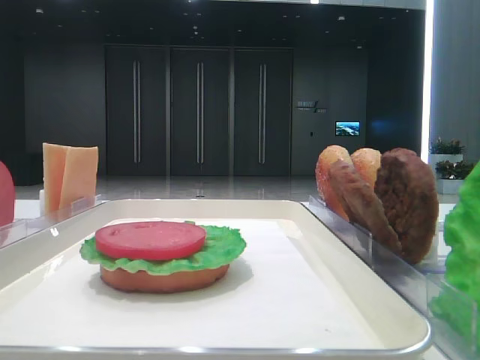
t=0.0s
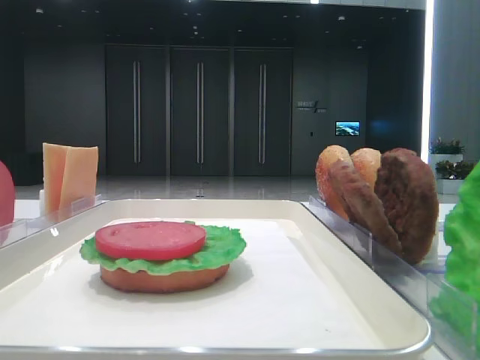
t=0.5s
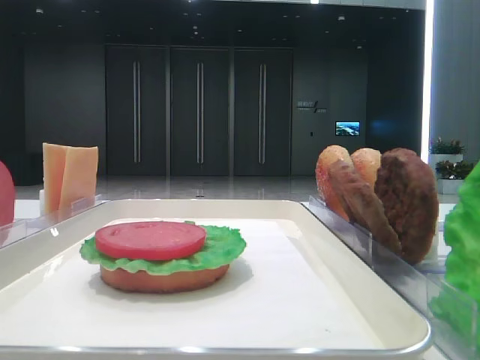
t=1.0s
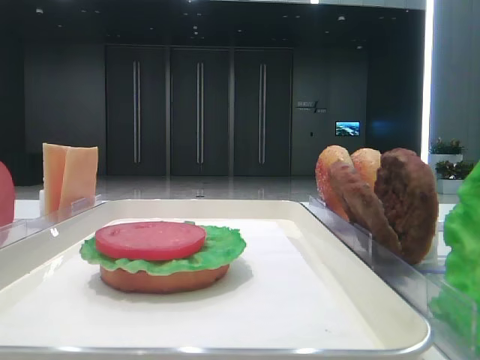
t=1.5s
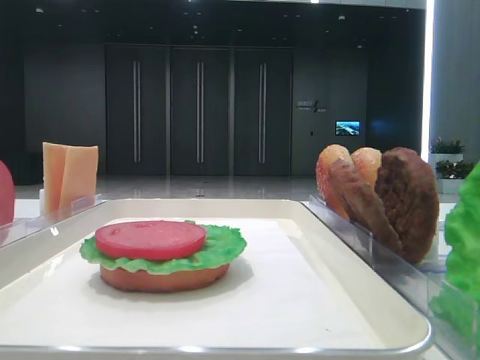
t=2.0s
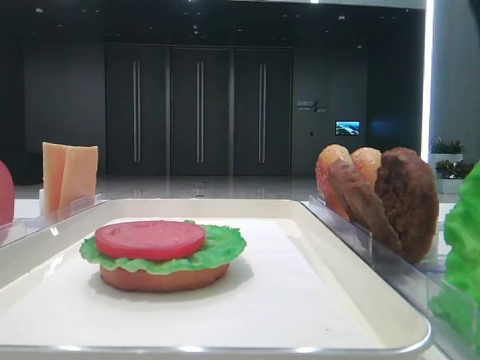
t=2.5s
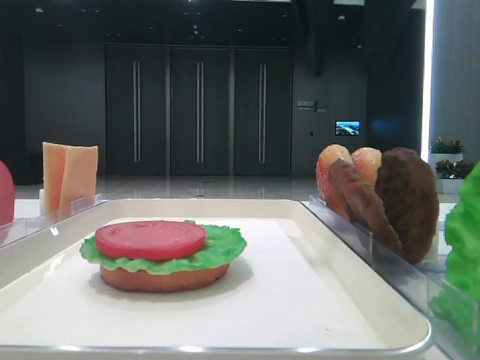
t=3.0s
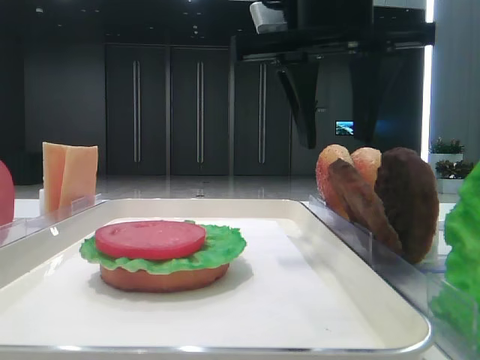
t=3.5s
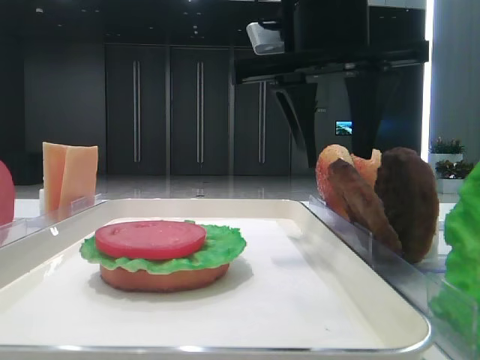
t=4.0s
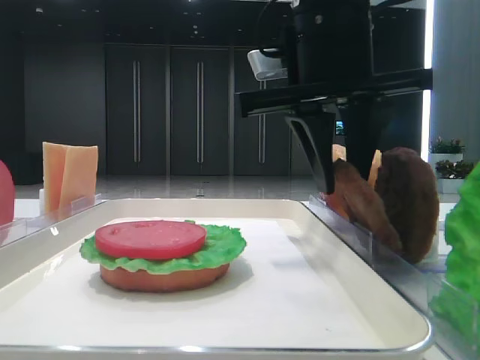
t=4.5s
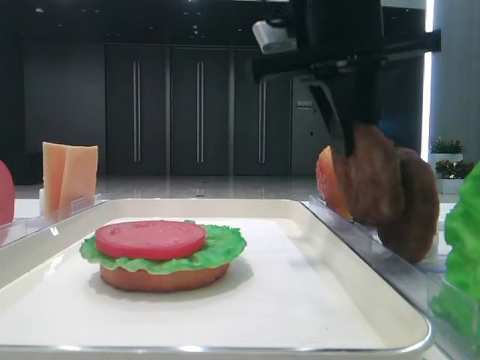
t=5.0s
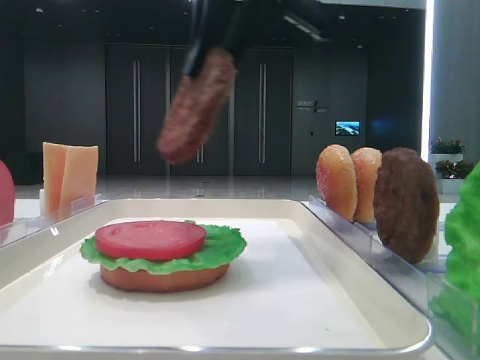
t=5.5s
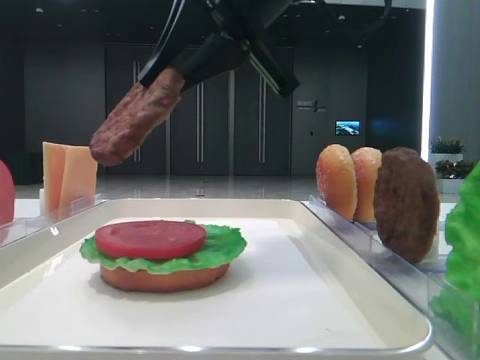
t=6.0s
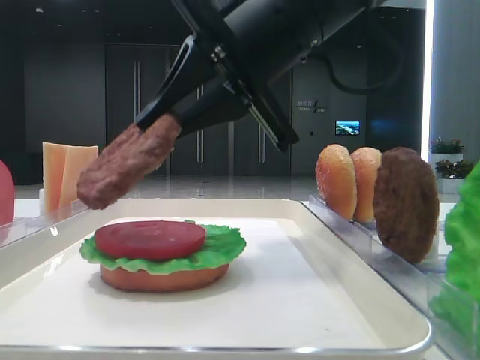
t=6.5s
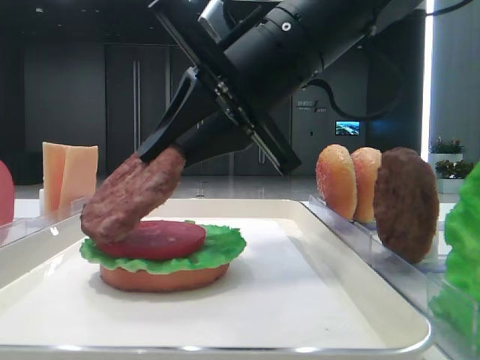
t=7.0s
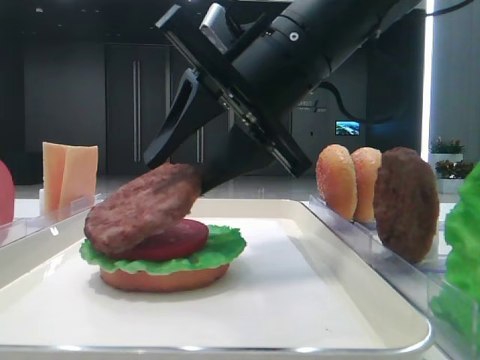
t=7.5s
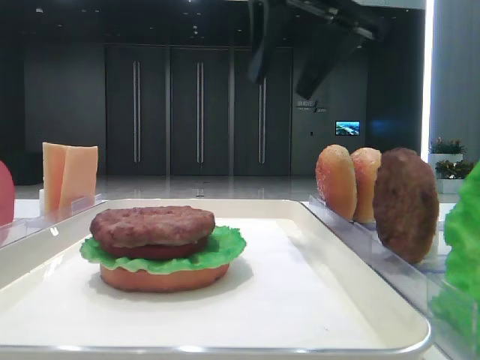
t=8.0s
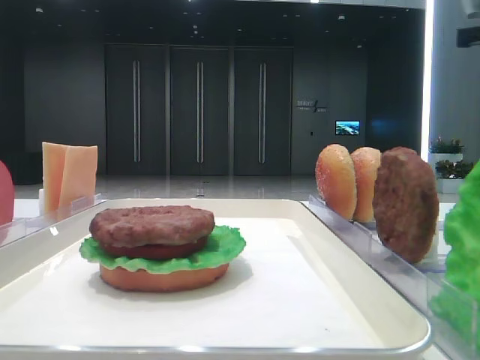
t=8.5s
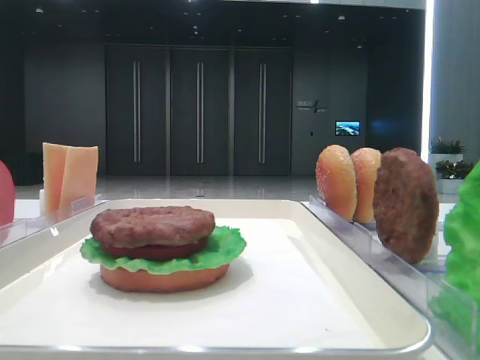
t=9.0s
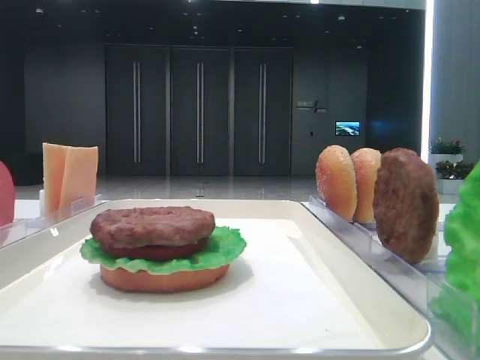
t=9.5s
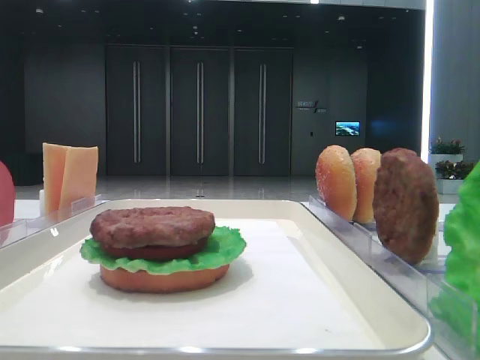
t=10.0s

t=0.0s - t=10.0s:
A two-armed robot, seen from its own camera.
Step, t=0.0s - t=4.5s: Grab the patty with the right hand.
Step, t=5.0s - t=7.5s: Place the patty on the tomato slice with the right hand.
t=2.0s - t=4.0s: The right gripper moves to the left and forward, approximately 25 cm.
t=4.0s - t=6.0s: The right gripper closes its fingers.
t=6.0s - t=8.0s: The right gripper travels to the right by about 5 cm, reaches roughly 5 cm downward, then returns, and opens up.
t=8.0s - t=10.0s: The right gripper shifts approximately 40 cm backward and to the right.

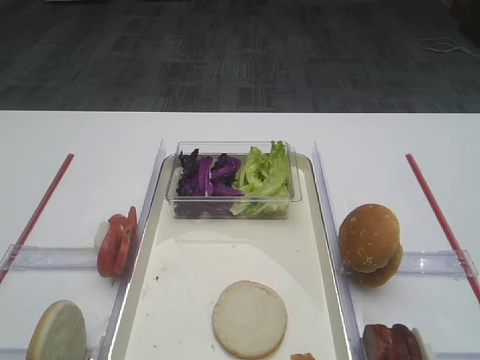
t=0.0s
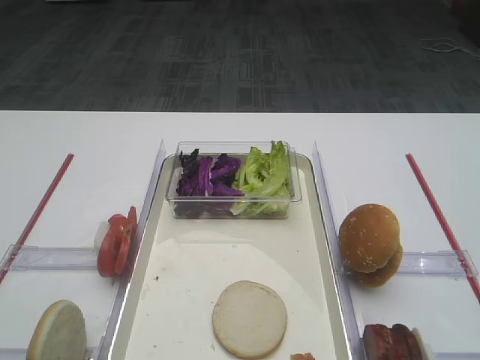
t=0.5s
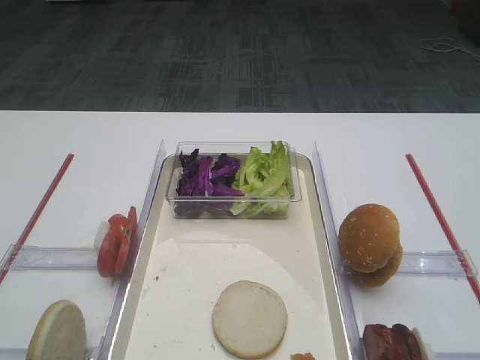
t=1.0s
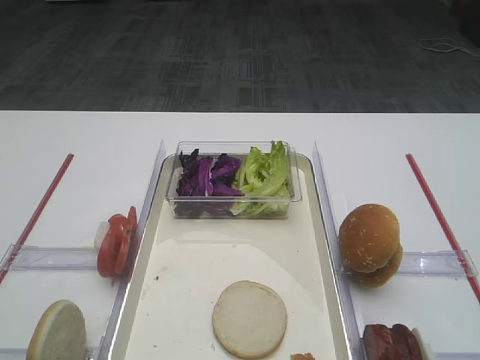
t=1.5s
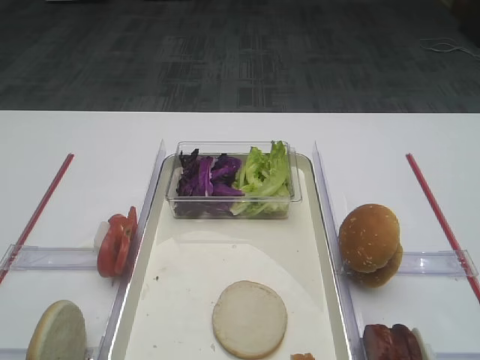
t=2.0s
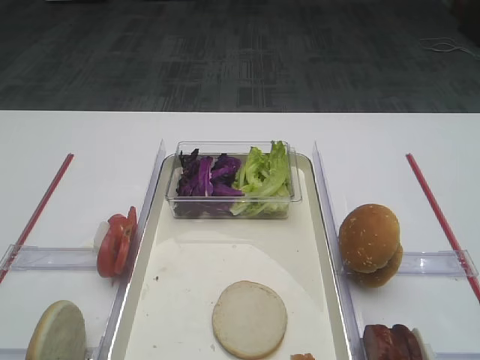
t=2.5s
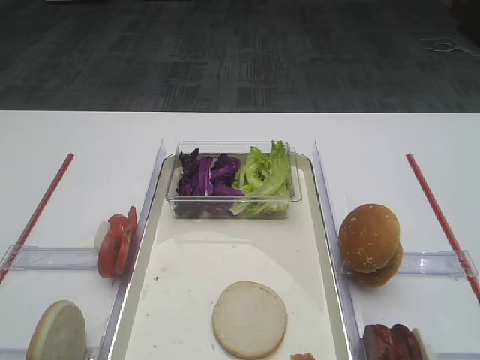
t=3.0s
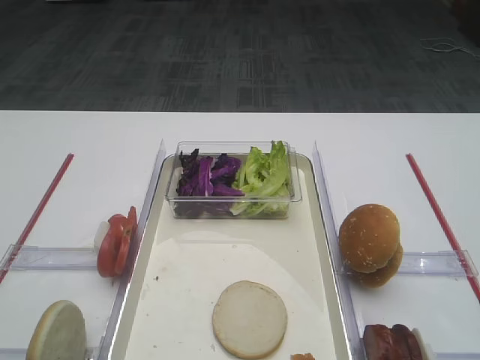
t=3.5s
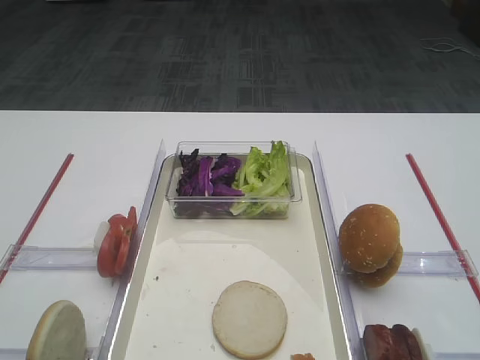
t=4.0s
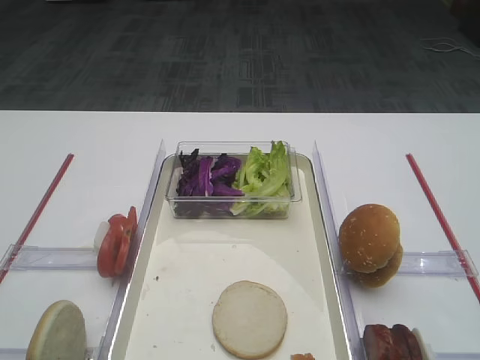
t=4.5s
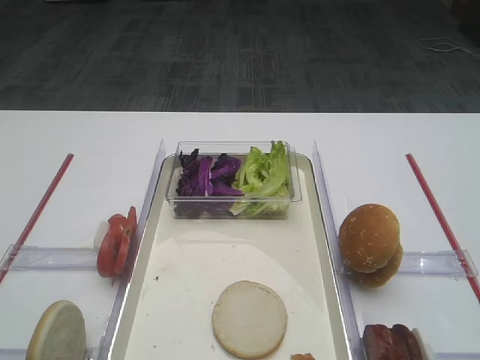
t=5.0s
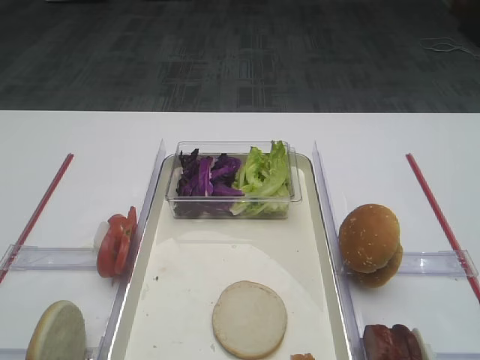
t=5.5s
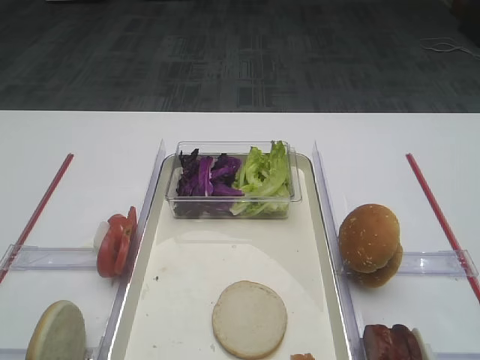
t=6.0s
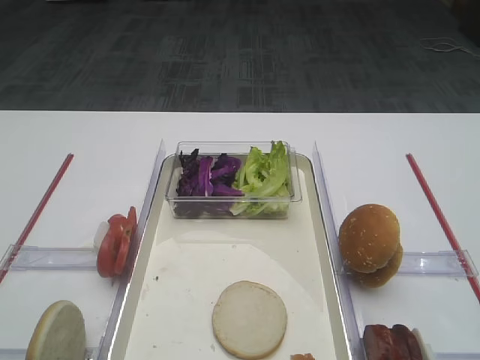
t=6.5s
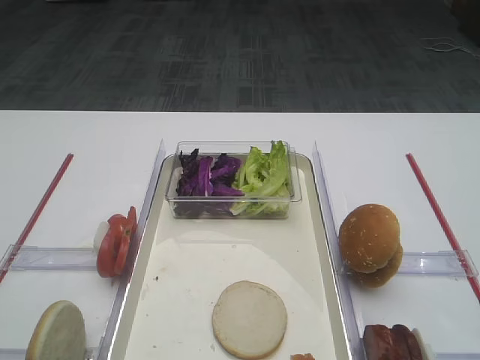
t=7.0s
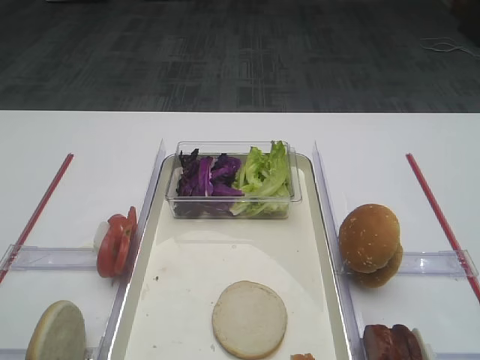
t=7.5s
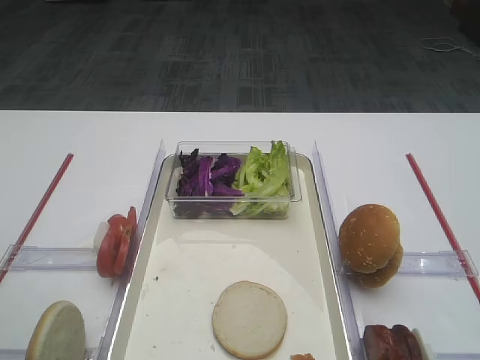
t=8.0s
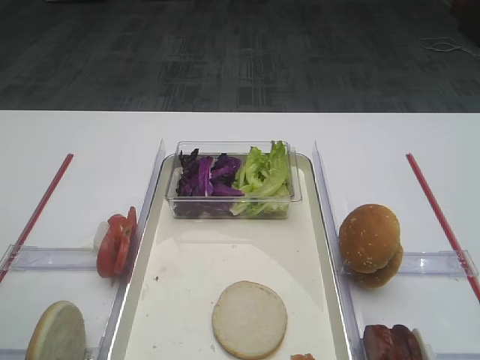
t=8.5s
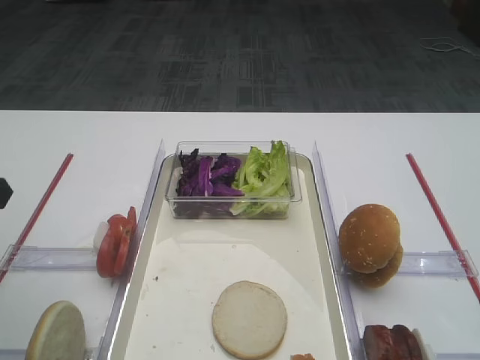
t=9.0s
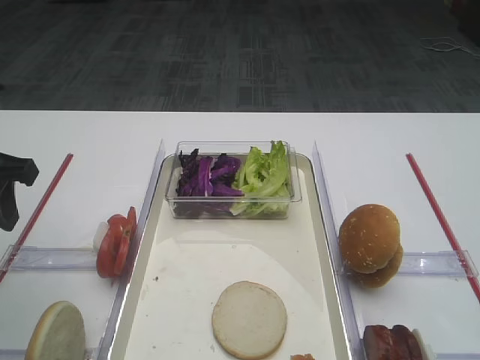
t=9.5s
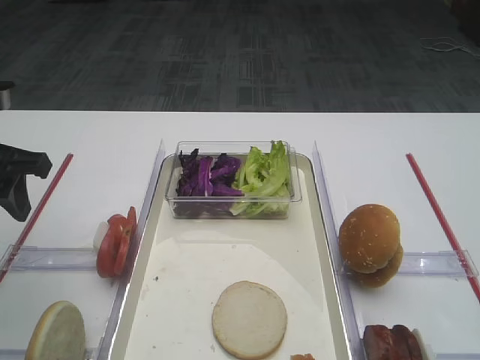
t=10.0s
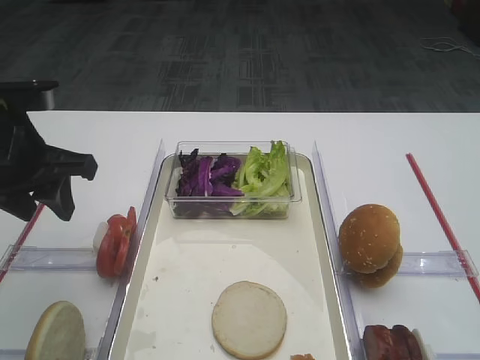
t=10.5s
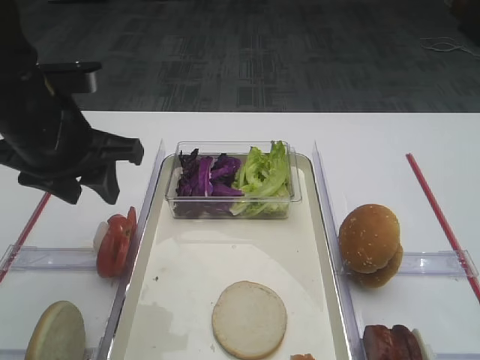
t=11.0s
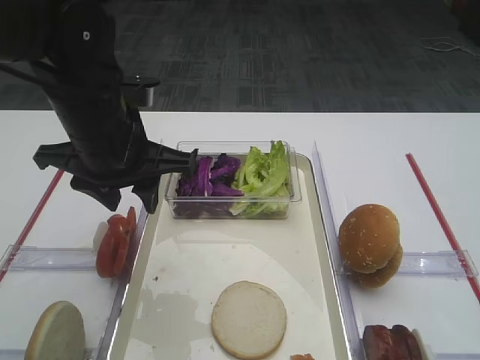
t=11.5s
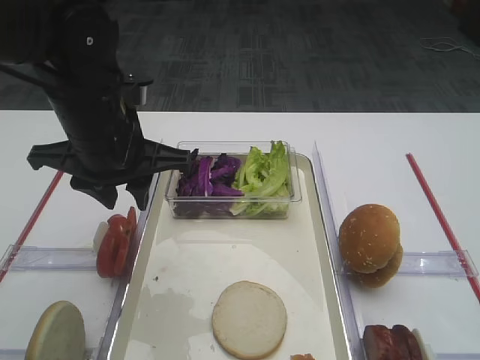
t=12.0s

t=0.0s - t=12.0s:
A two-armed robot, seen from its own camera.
t=2.0s - t=4.0s: Neither gripper changes place.
t=8.0s - t=10.0s: The left gripper heads forward, covering some 15 cm.
t=10.0s - t=12.0s: The left gripper heads to the right, covering some 15 cm.

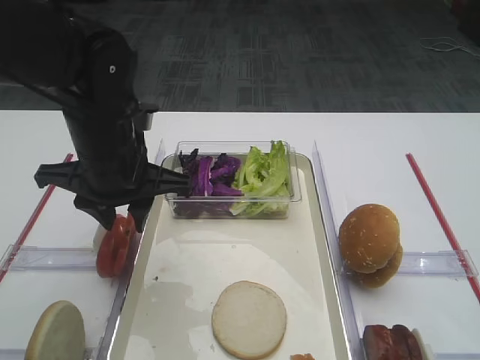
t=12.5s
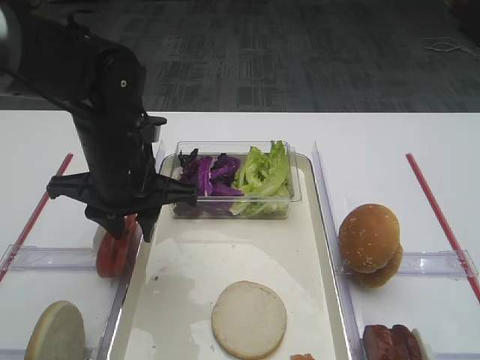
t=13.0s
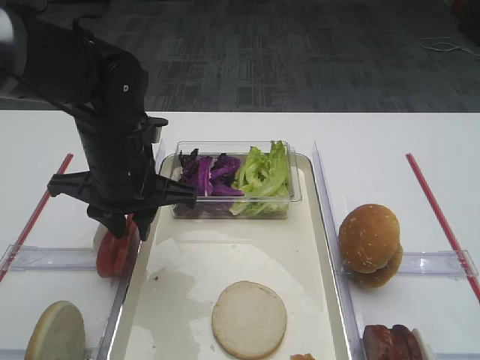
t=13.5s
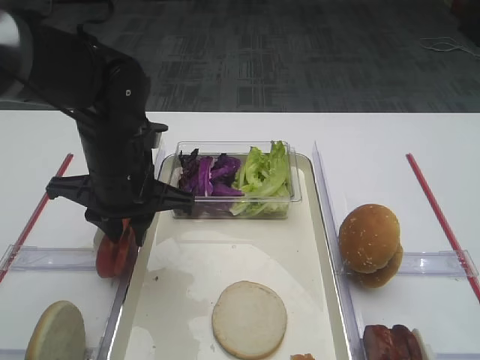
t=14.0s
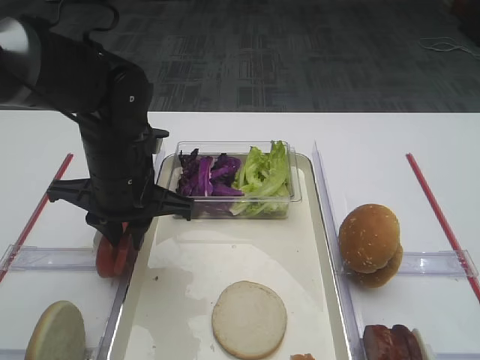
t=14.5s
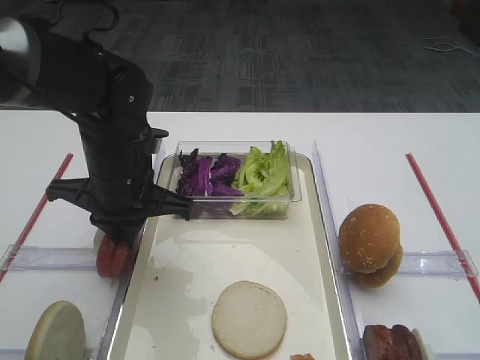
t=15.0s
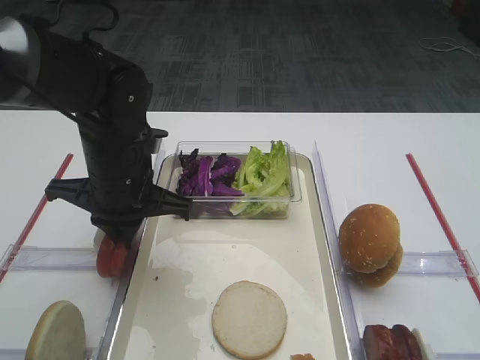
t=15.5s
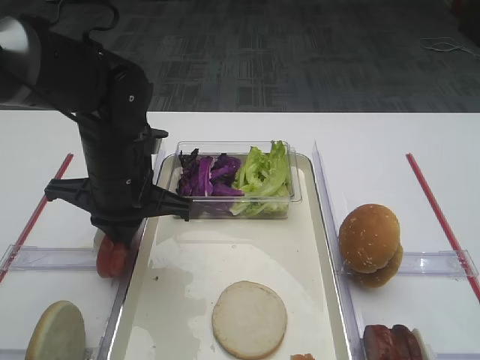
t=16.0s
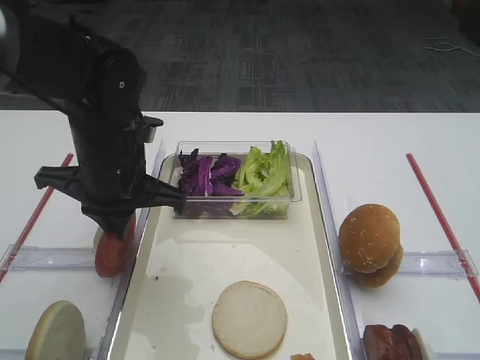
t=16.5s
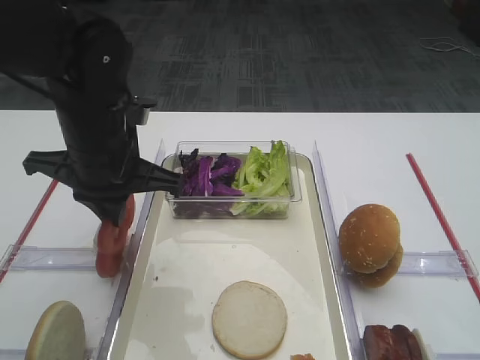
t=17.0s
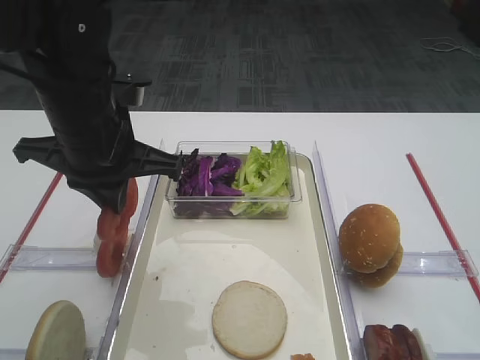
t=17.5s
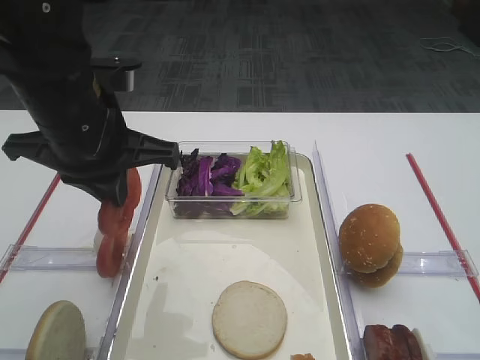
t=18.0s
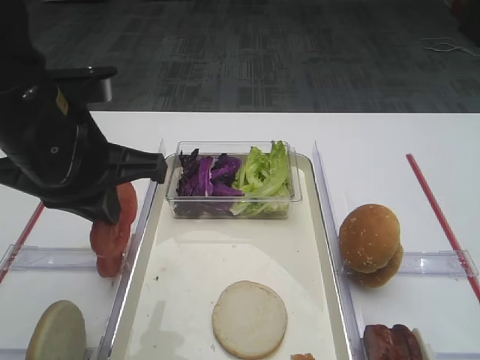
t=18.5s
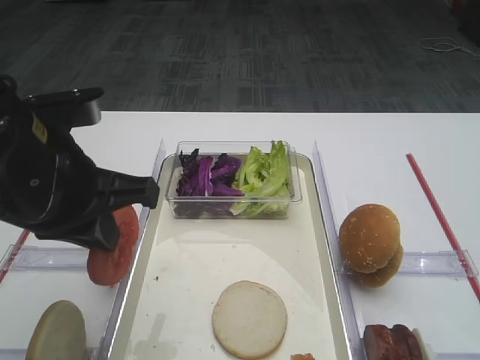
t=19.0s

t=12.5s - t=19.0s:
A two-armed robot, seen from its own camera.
Step, t=12.5s - t=17.0s: Pick up the tomato slice with the left gripper.
t=12.5s - t=14.5s: The grippers stay close to where they were, moving slightly.
t=14.5s - t=17.0s: The left gripper closes up.
t=17.0s - t=19.0s: The left gripper goes approximately 10 cm backward.
